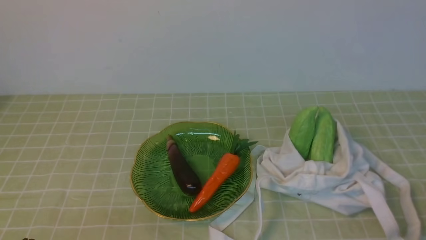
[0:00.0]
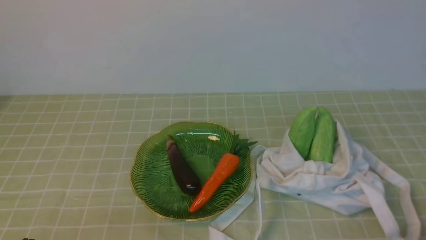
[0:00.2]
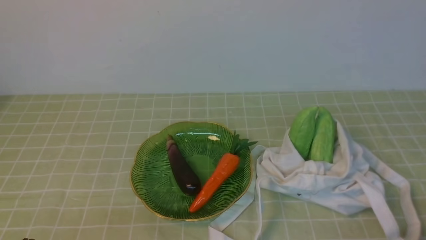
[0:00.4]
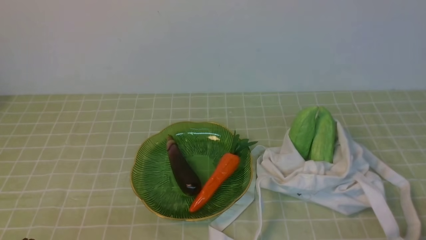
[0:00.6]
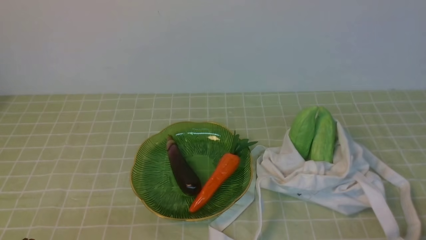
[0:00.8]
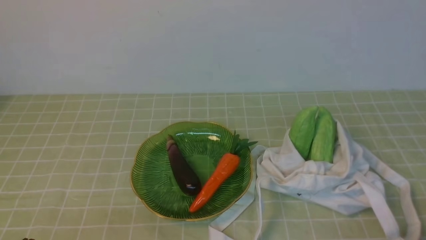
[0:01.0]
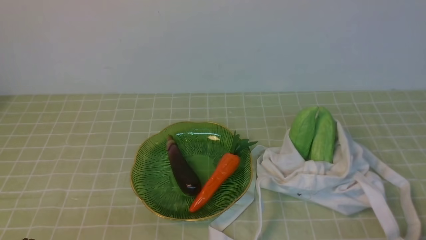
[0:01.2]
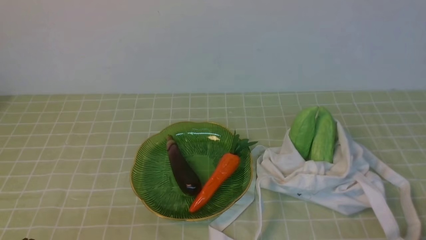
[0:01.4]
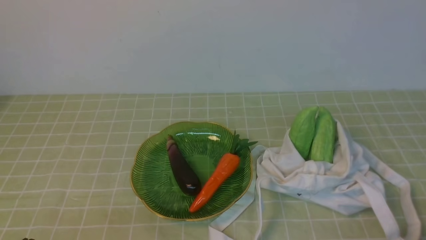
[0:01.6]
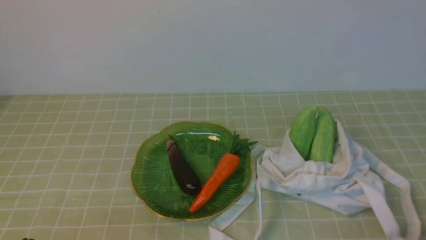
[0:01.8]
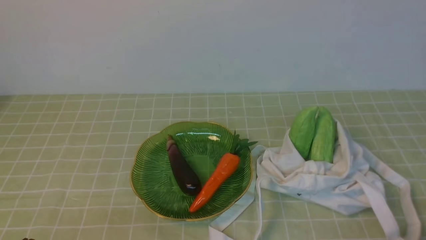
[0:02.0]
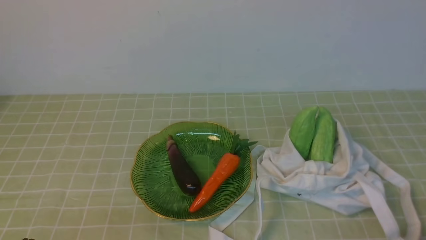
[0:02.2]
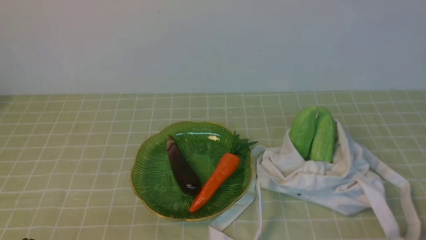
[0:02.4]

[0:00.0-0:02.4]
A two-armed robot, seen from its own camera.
Task of the whole recording: take vegetables from bag on green coffee tablecloth place on plate.
0:01.2 to 0:02.4: Both grippers stay put.
